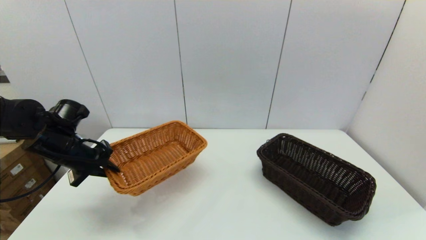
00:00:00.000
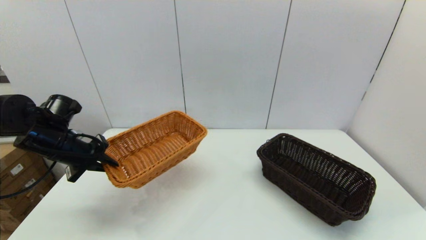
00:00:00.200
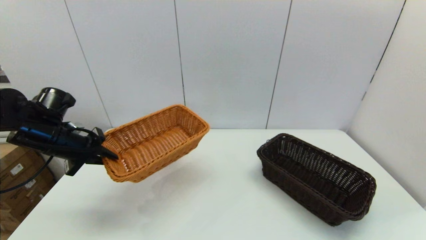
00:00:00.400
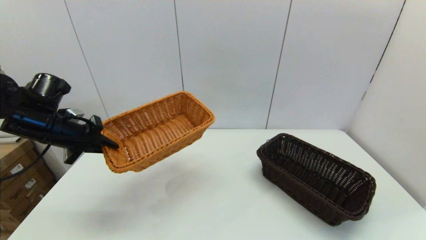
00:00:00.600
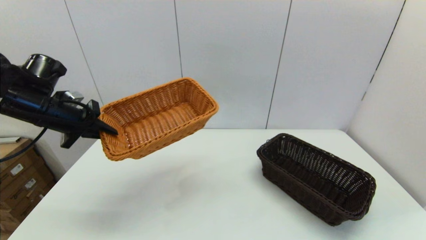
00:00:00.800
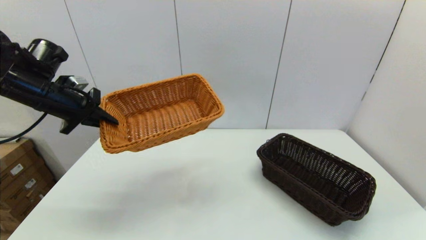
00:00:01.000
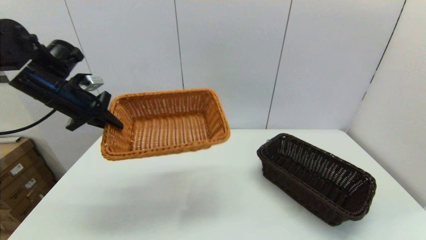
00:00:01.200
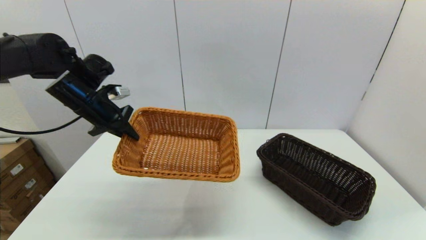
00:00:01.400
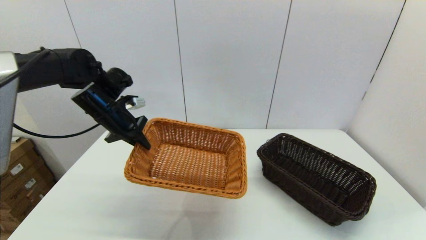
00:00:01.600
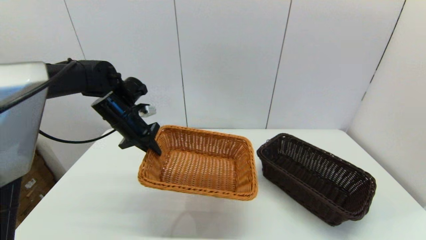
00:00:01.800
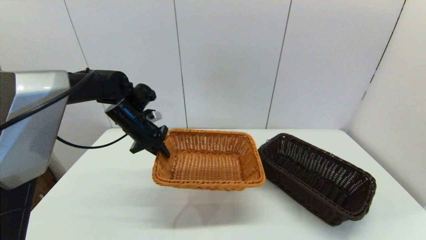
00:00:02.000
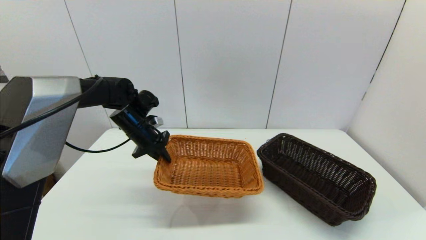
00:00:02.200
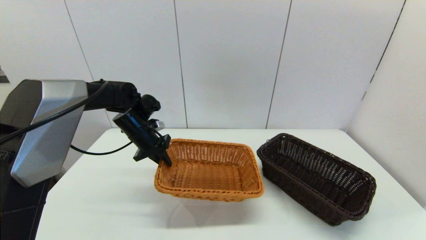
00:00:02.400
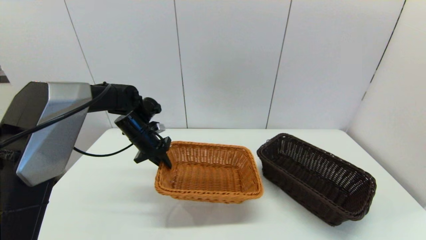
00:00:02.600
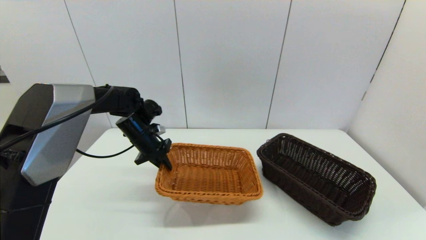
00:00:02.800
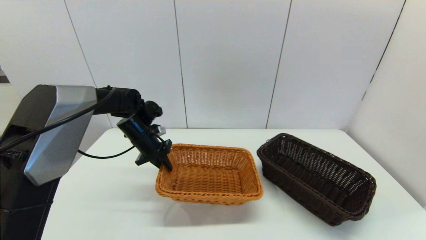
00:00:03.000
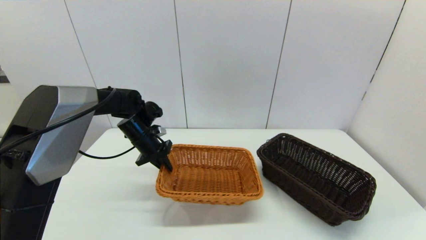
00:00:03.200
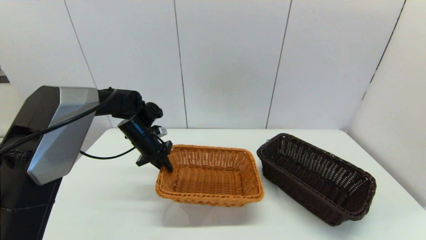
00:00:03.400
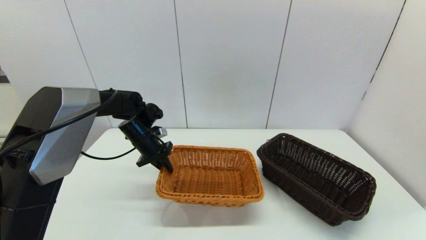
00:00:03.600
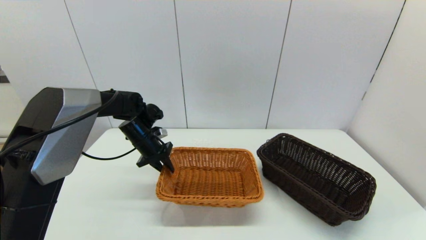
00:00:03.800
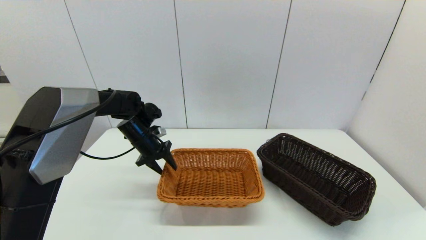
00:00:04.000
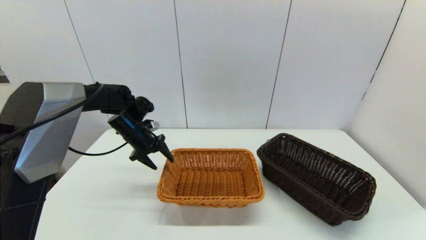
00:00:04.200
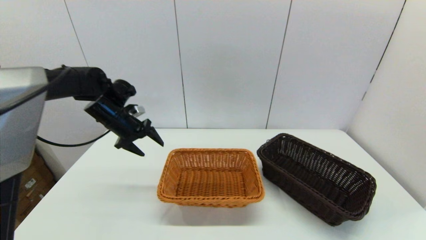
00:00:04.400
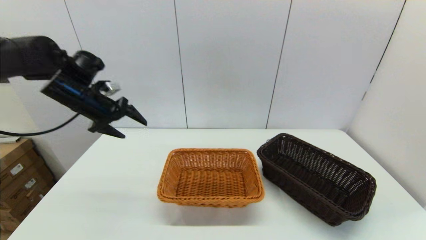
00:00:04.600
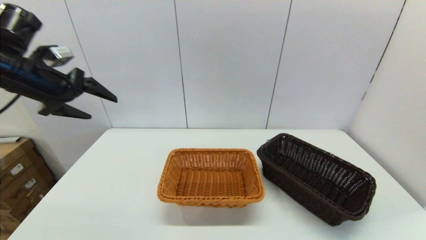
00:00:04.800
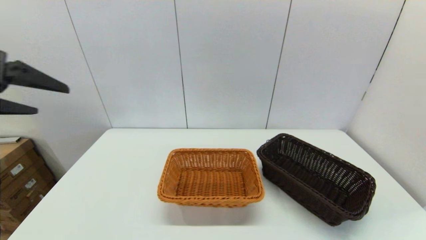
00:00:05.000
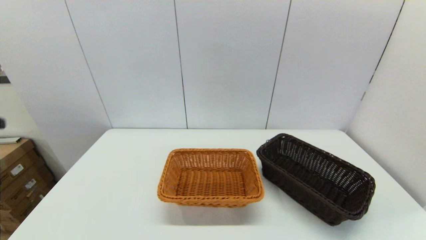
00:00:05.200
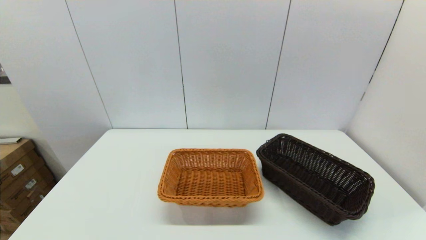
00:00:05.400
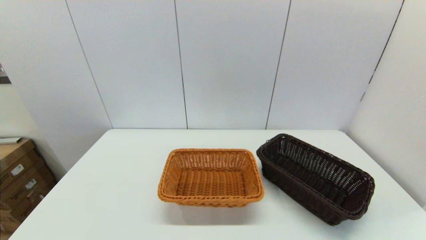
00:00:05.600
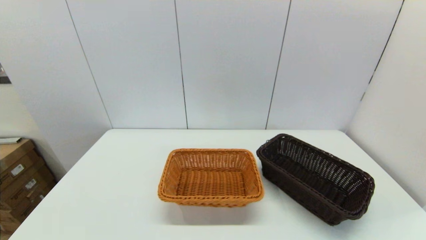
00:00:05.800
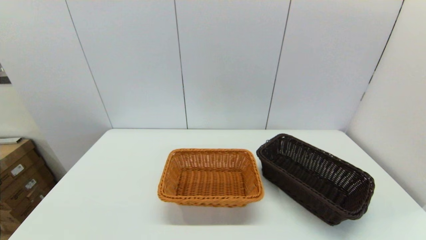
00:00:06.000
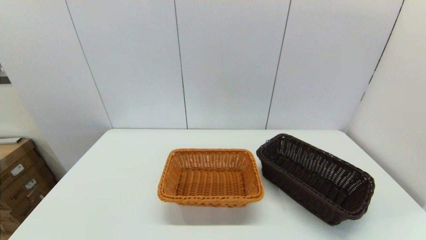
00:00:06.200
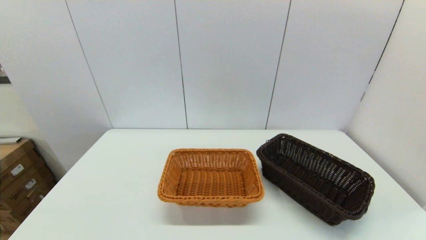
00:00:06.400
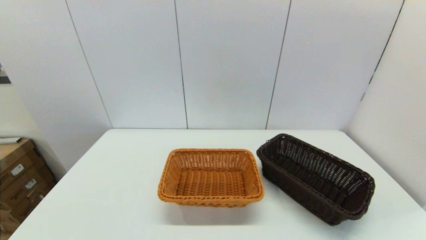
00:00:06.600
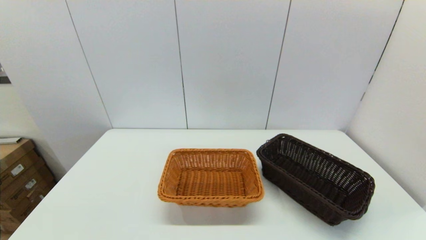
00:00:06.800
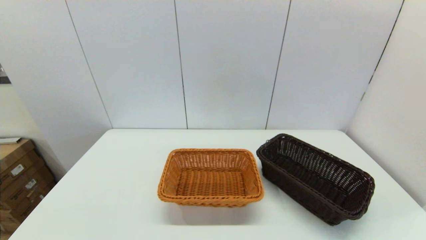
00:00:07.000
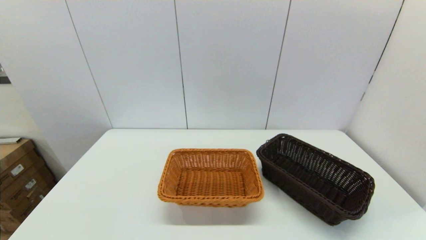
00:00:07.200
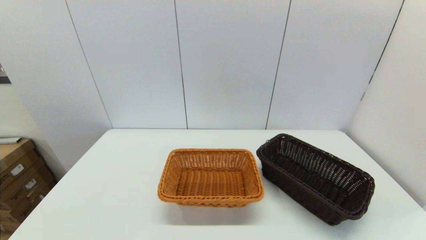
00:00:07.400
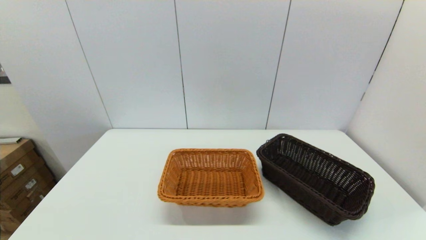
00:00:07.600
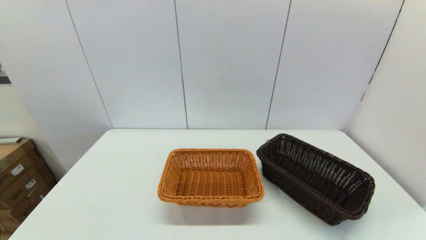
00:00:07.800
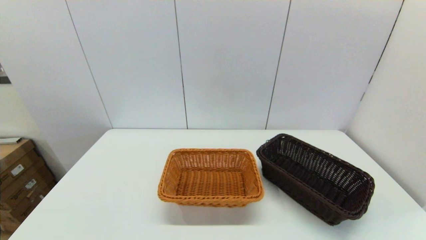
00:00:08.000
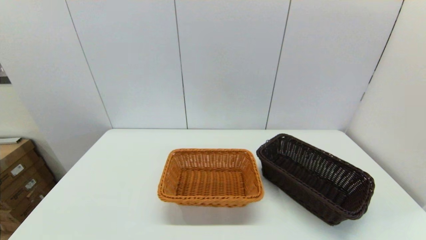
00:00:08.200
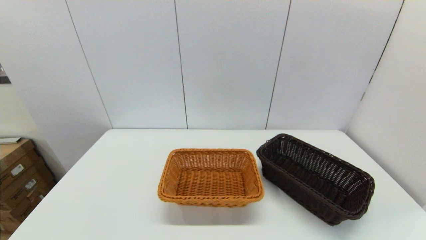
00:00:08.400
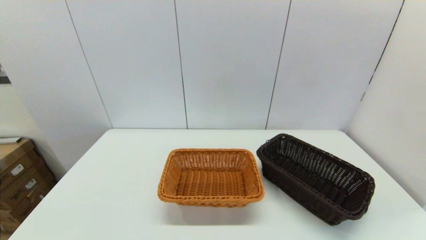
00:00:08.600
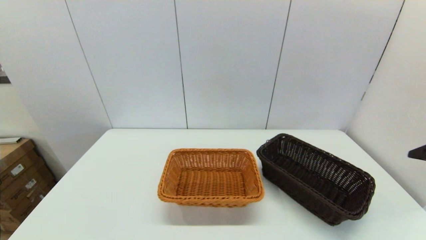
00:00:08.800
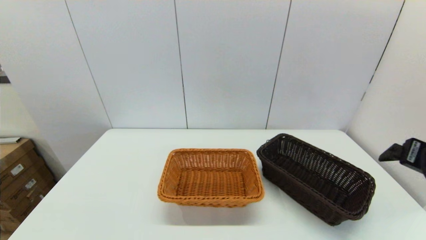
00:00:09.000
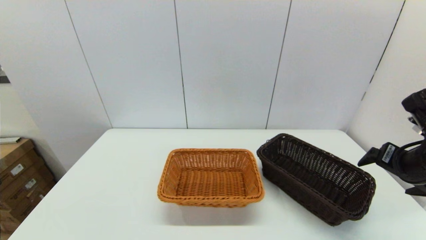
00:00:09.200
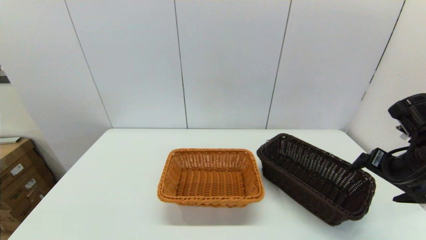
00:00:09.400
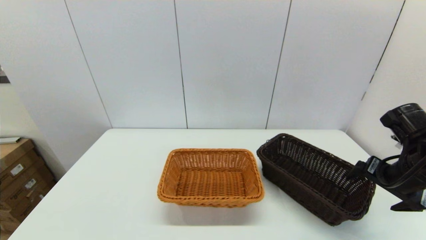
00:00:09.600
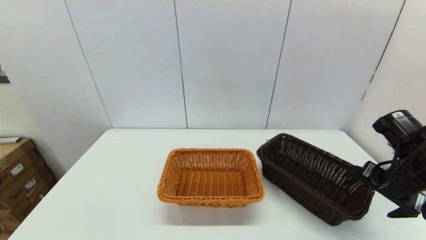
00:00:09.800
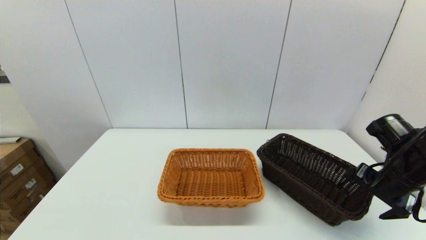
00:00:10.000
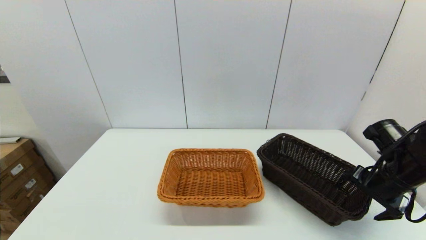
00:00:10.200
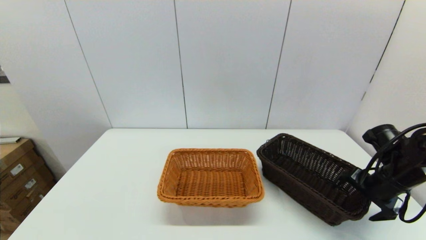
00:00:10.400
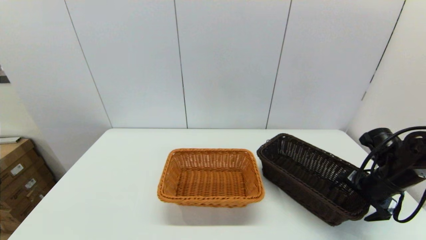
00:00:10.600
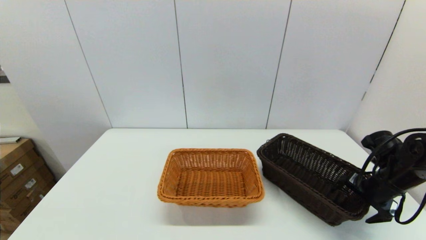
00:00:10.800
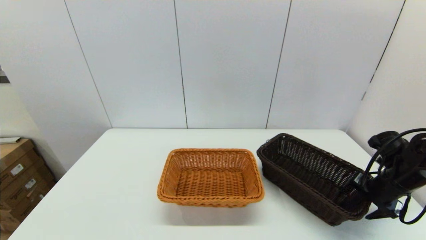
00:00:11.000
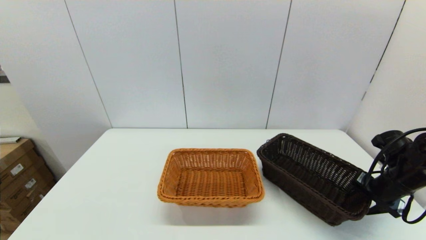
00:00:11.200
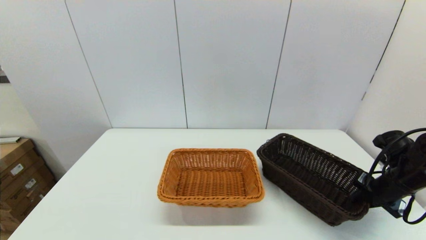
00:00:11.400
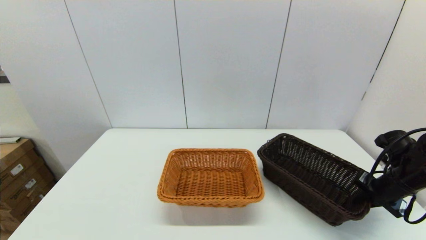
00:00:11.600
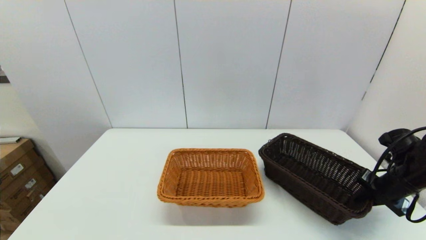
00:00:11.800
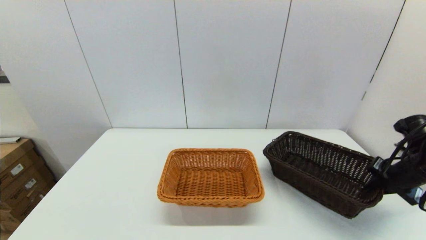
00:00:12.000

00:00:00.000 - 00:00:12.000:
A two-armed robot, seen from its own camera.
Task of the whole recording: stack a basket on top of another basket.
Step, 00:00:00.000 - 00:00:04.600: Place the light basket on the middle of the table with the left gripper.
Step, 00:00:04.800 - 00:00:11.600: Grasp the dark basket with the right gripper.
00:00:00.000 - 00:00:01.600: The left gripper shifts about 10 cm to the right, forward and upward.
00:00:01.600 - 00:00:03.000: The left gripper is displaced downward by about 10 cm.
00:00:03.000 - 00:00:04.400: The left gripper goes roughly 10 cm upward and to the left, and opens its fingers.
00:00:04.400 - 00:00:06.000: The left gripper heads backward, covering roughly 50 cm.
00:00:07.600 - 00:00:09.000: The right gripper is displaced forward and upward by approximately 25 cm.
00:00:09.000 - 00:00:10.400: The right gripper travels downward and forward by approximately 15 cm.
00:00:10.400 - 00:00:12.000: The right gripper moves to the right, roughly 5 cm, and closes.

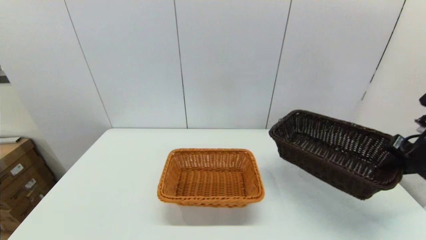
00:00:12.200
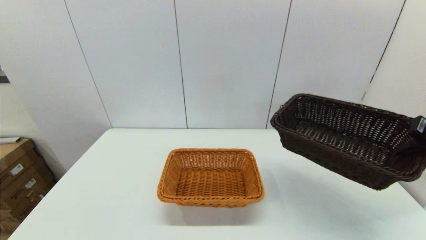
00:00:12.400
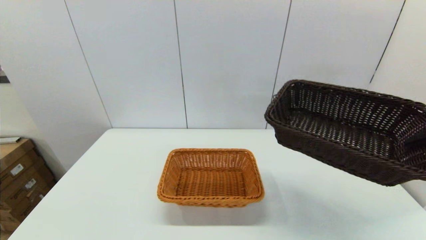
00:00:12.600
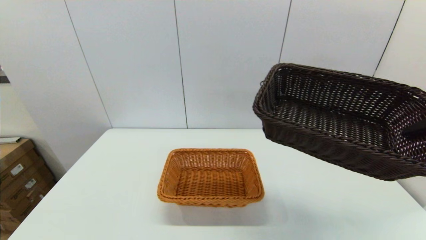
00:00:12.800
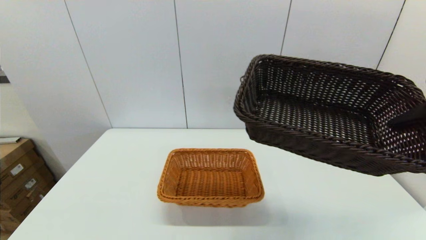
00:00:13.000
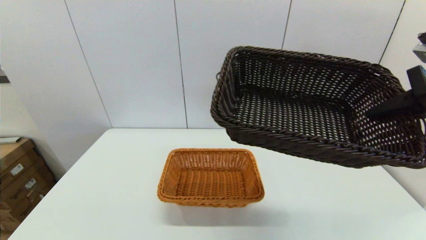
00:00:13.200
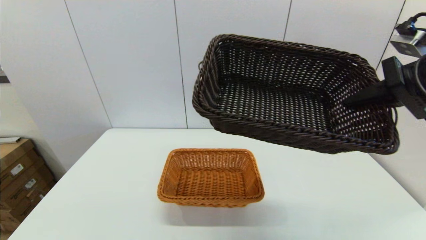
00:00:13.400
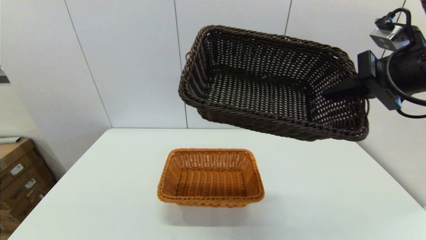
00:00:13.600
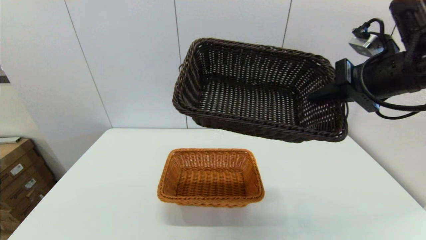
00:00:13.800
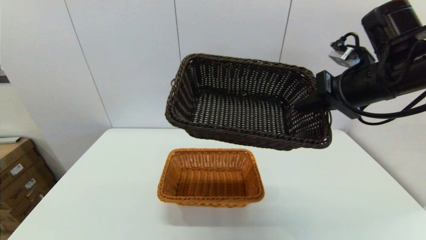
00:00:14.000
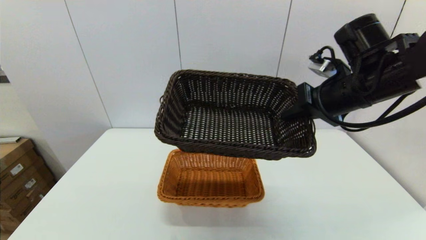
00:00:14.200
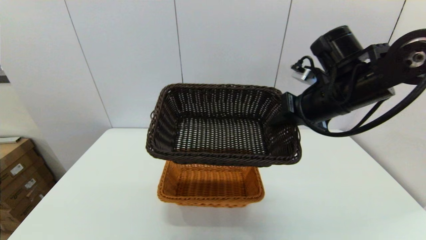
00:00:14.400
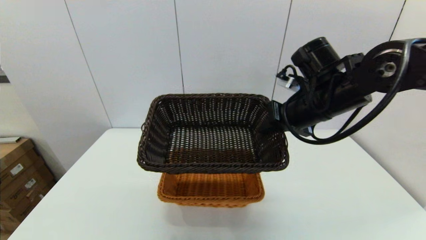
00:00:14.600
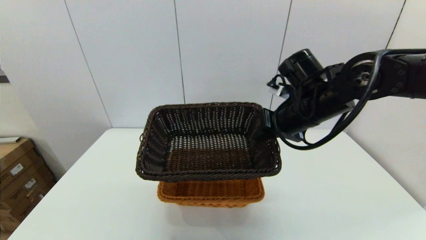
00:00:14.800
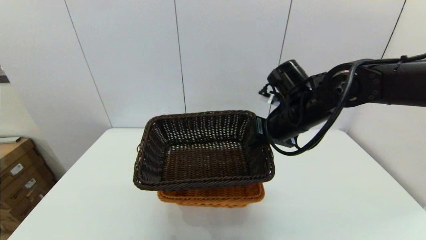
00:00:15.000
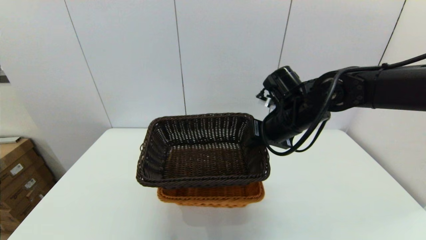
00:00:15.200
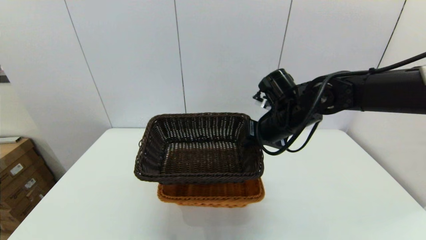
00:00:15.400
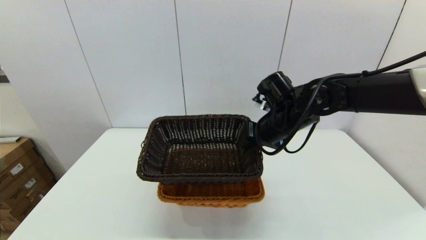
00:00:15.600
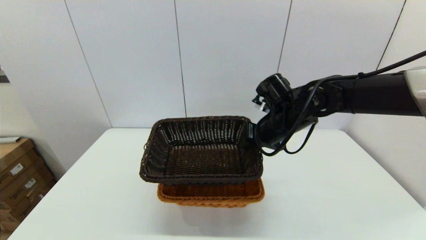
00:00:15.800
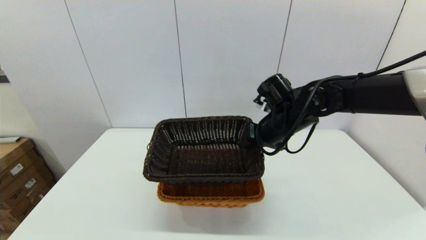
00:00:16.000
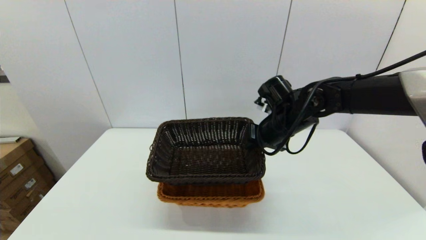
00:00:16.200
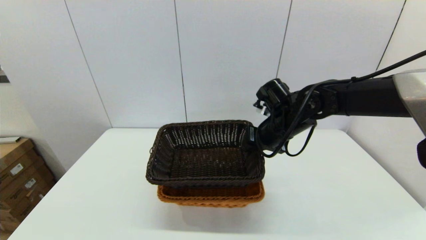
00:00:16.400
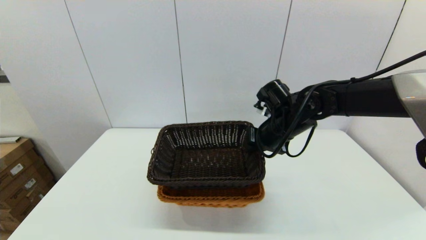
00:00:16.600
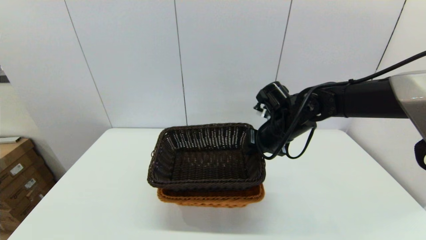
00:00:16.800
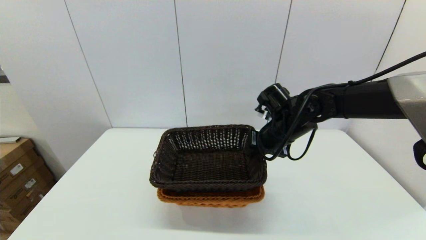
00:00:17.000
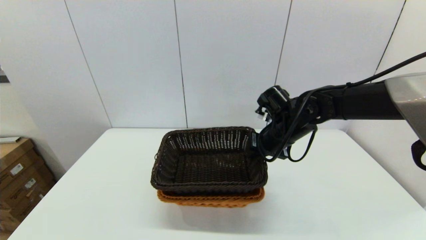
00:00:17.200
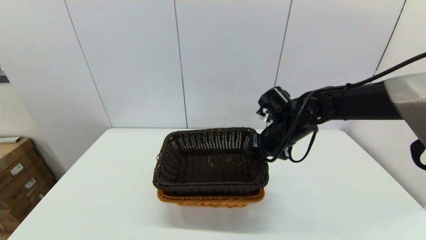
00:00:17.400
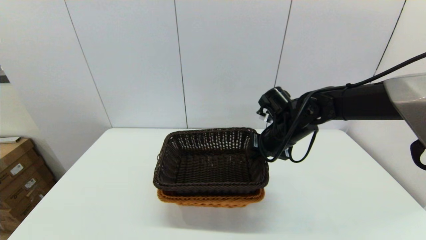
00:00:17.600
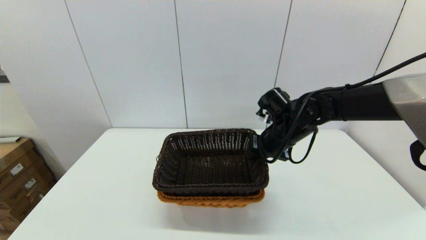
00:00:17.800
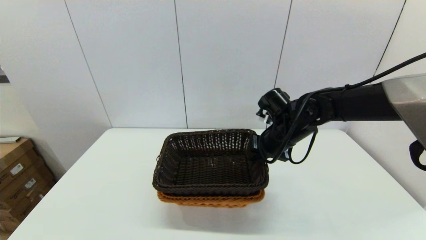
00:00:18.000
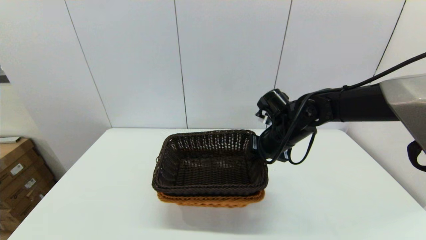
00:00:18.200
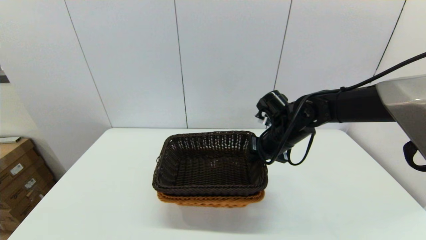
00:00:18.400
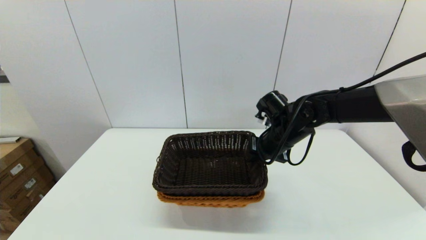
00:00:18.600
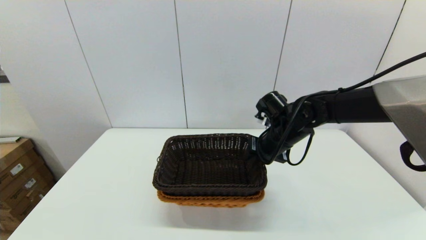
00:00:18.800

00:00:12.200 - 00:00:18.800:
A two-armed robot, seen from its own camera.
Task of the whole recording: stack a basket on top of another basket.
00:00:12.200 - 00:00:13.800: The right gripper shifts approximately 20 cm to the left and upward.
00:00:13.800 - 00:00:15.400: The right gripper is displaced downward, to the left and forward by approximately 20 cm.
00:00:15.400 - 00:00:18.800: The grippers make only small movements.
